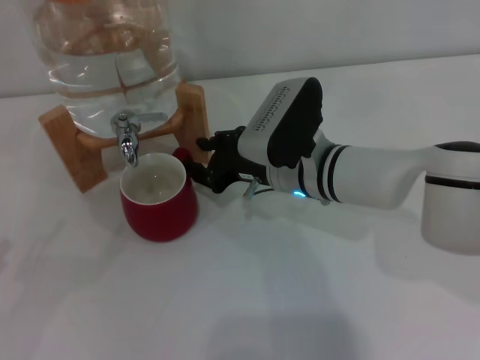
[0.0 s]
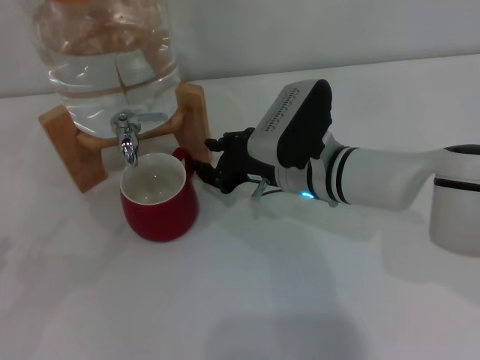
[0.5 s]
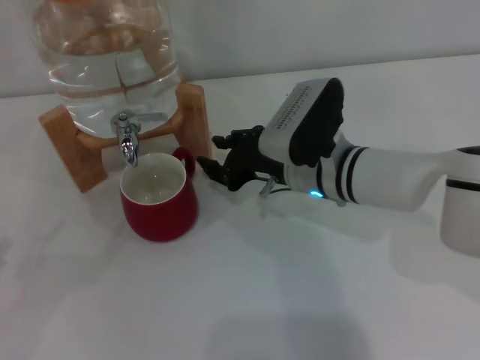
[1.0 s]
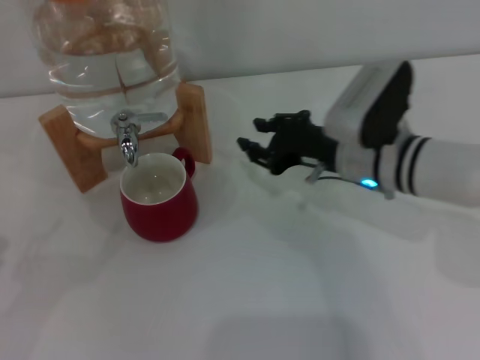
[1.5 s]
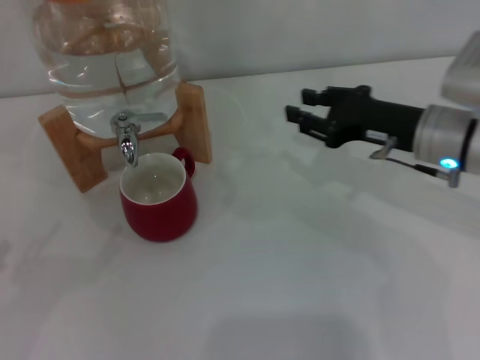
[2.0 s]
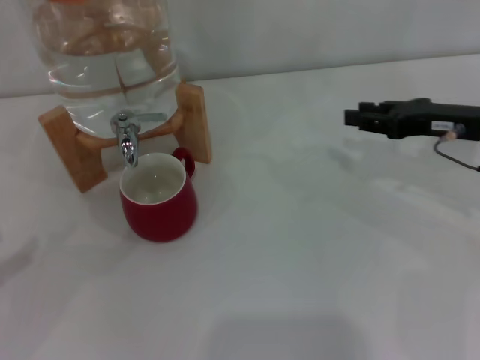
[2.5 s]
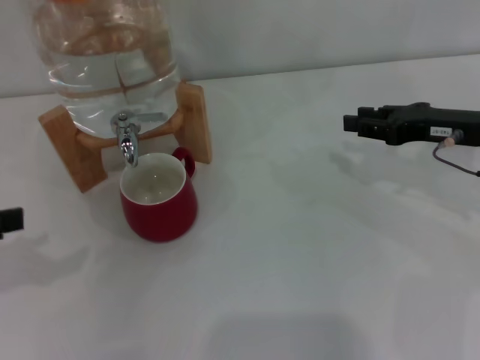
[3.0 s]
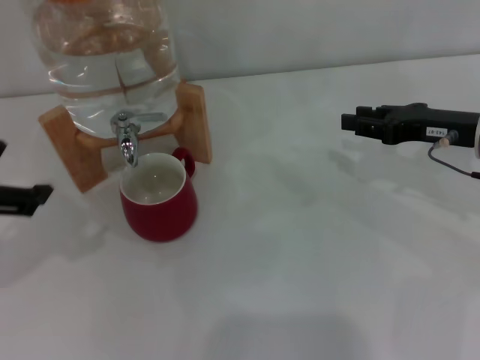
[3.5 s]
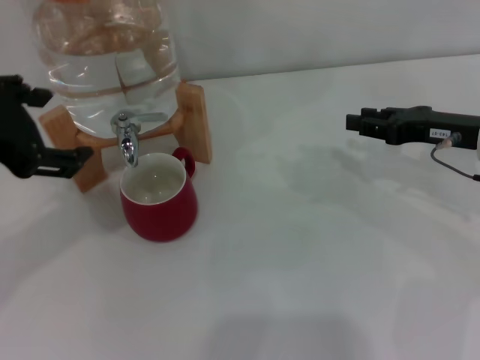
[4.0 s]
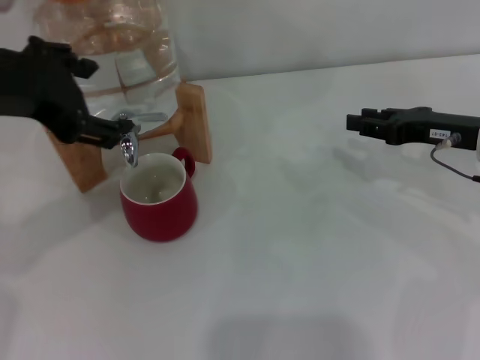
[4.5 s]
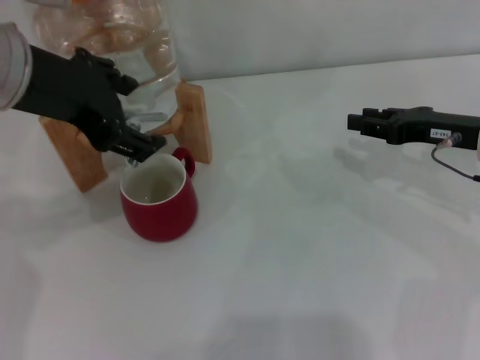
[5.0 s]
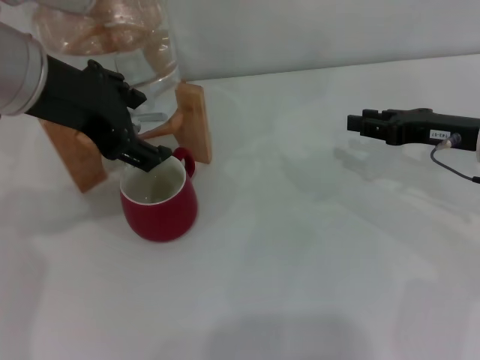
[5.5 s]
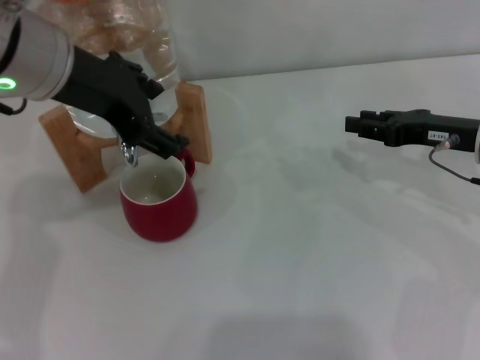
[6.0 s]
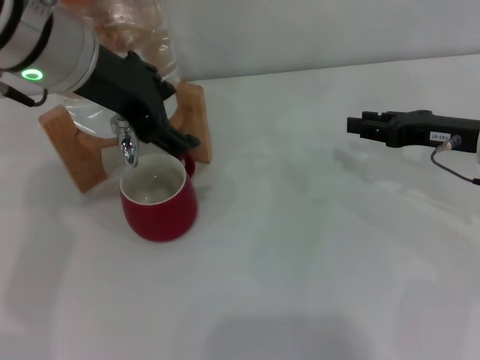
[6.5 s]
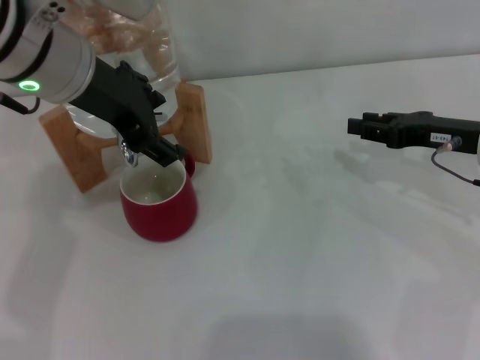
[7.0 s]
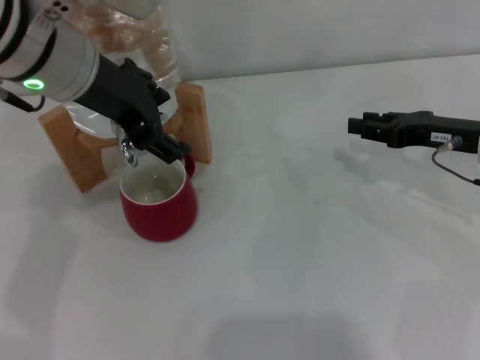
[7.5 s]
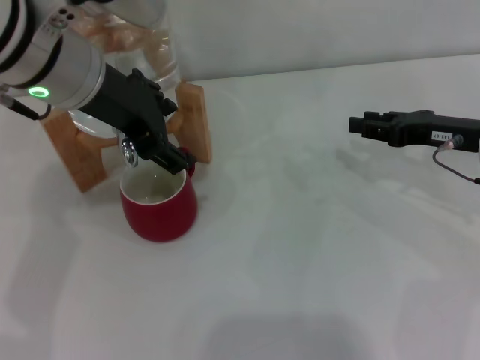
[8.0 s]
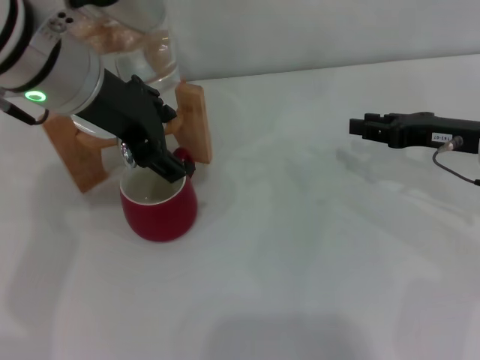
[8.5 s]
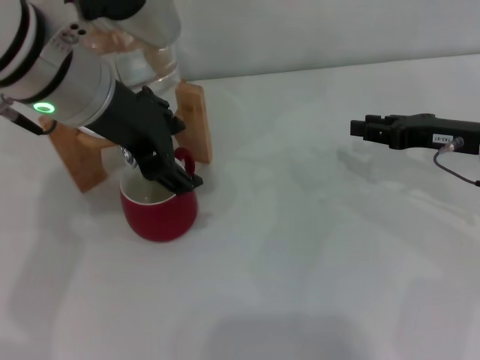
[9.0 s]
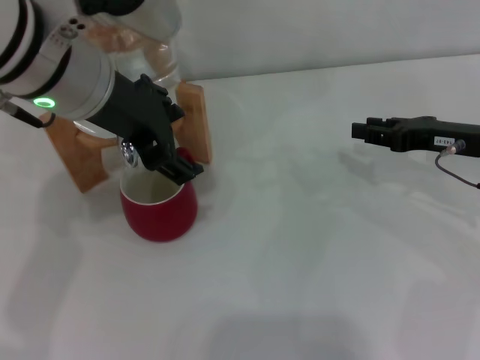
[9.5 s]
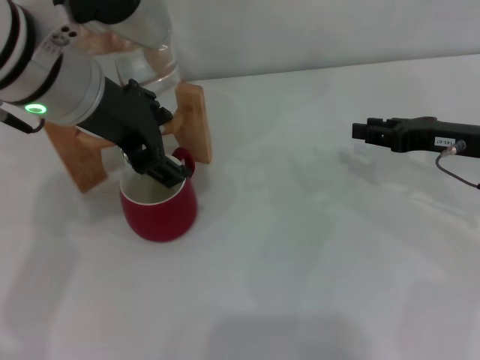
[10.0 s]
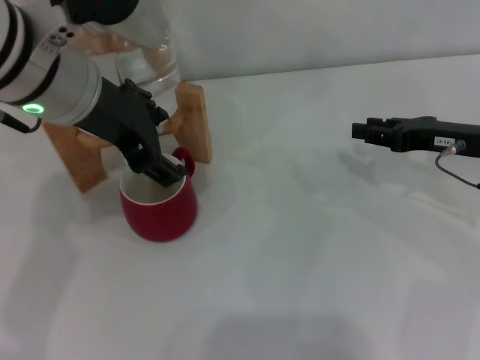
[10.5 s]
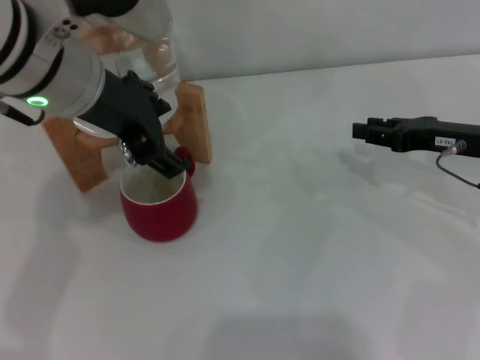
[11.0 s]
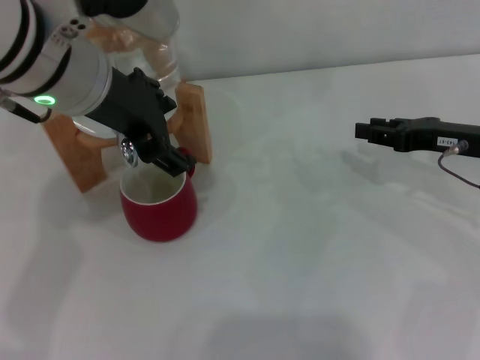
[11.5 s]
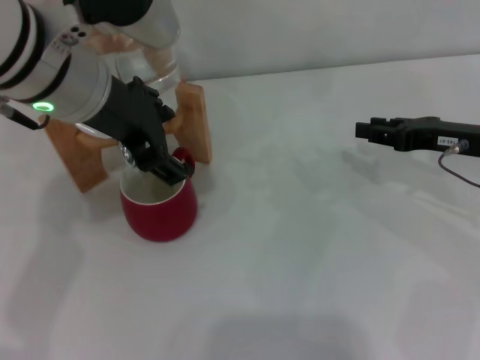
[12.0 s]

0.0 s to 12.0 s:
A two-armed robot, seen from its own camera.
Task of the whole recording: the right gripper pick up the red cup and place it horizontally under the faucet, the left gripper turn on the faucet to fill the cup, and then turn off the faucet.
0.0 to 2.0 s: The right gripper goes approximately 15 cm to the right.
2.0 to 4.0 s: The left gripper goes about 30 cm to the right, upward and forward. Meanwhile the right gripper heads to the right, covering some 5 cm.
4.0 to 6.0 s: The left gripper travels to the right and forward by about 10 cm.
6.0 to 10.0 s: There are only small adjustments of the grippers.
10.0 to 12.0 s: Both grippers stay about where they are.

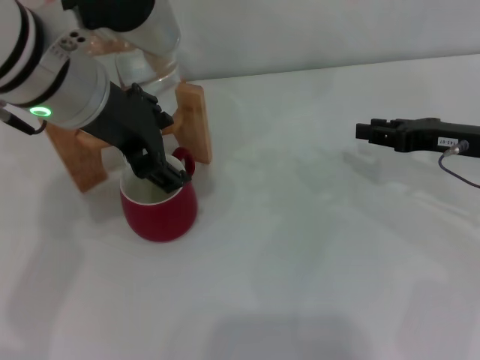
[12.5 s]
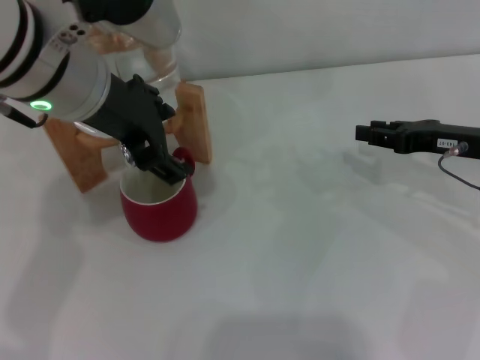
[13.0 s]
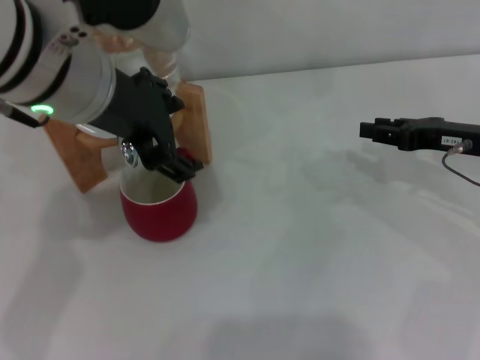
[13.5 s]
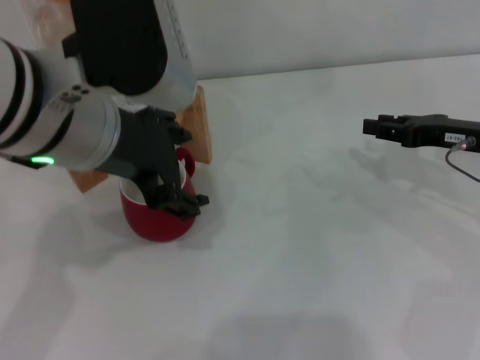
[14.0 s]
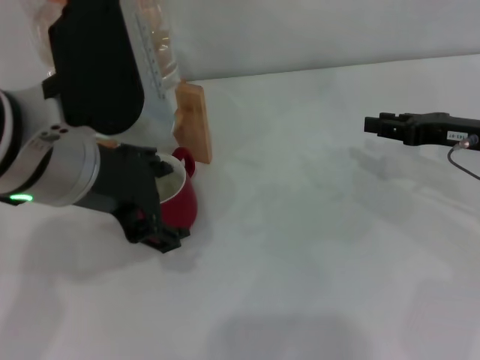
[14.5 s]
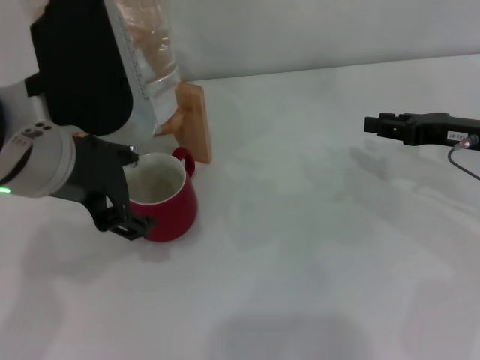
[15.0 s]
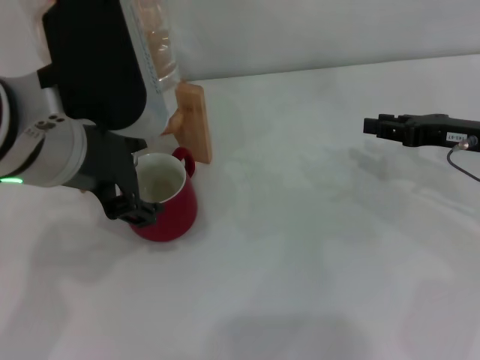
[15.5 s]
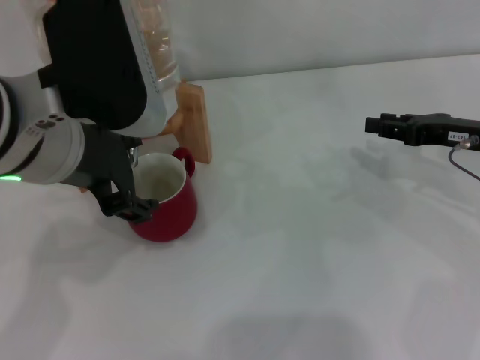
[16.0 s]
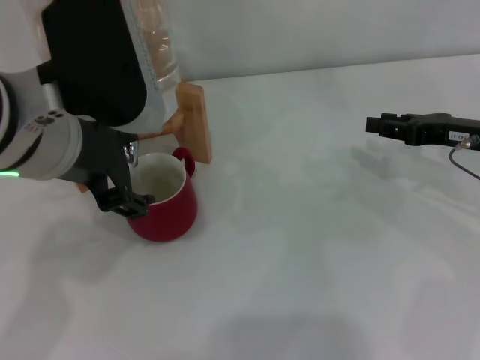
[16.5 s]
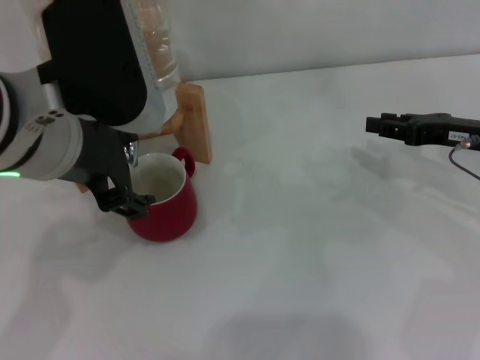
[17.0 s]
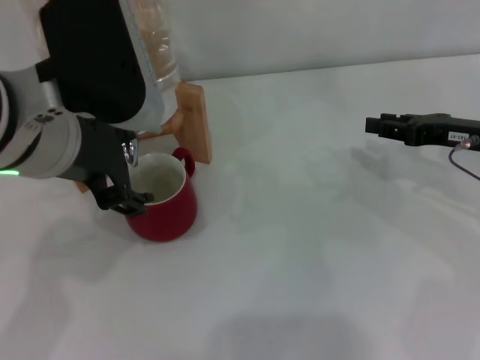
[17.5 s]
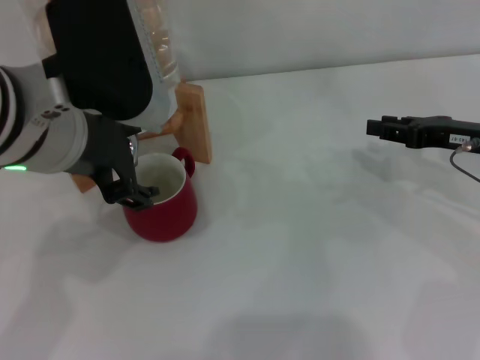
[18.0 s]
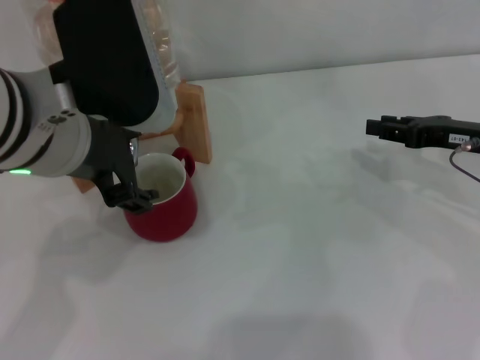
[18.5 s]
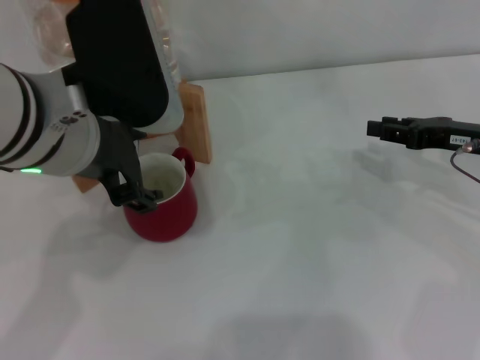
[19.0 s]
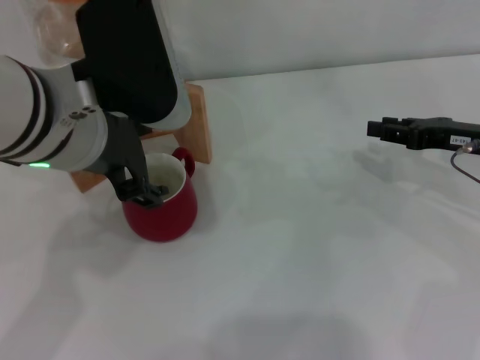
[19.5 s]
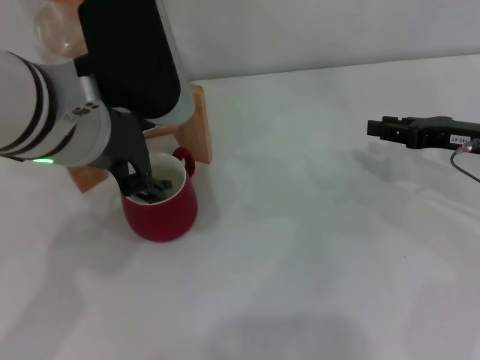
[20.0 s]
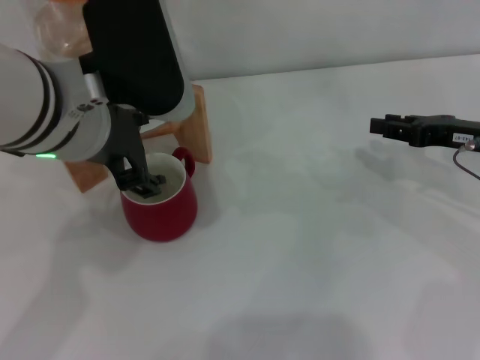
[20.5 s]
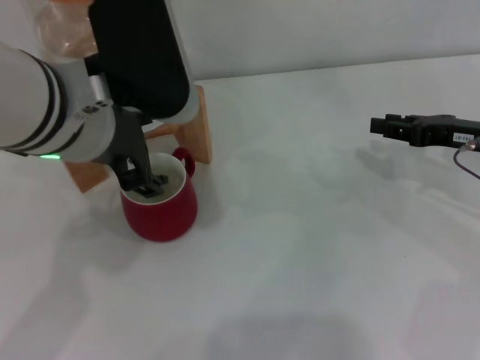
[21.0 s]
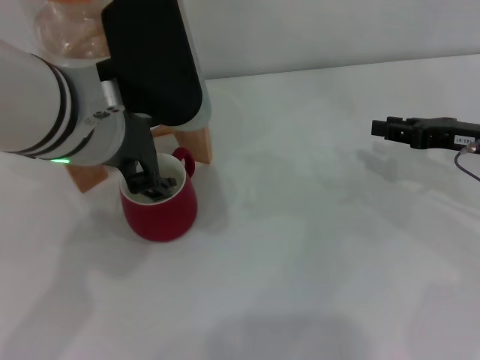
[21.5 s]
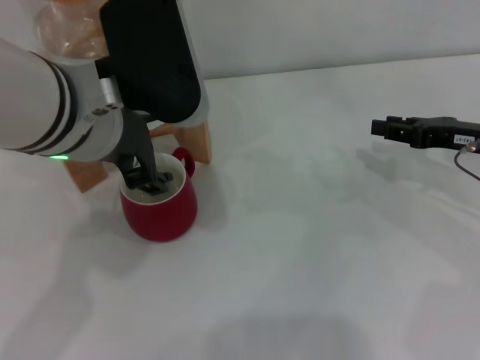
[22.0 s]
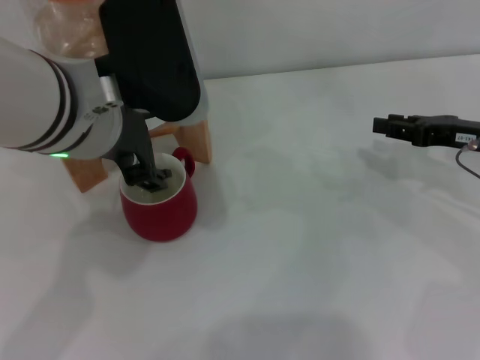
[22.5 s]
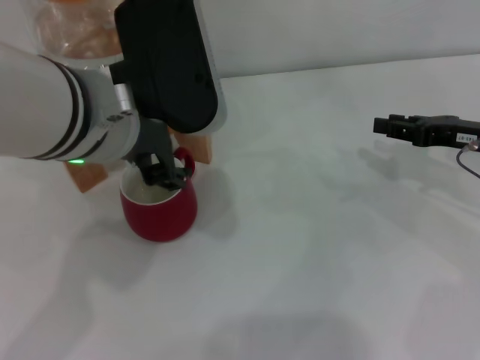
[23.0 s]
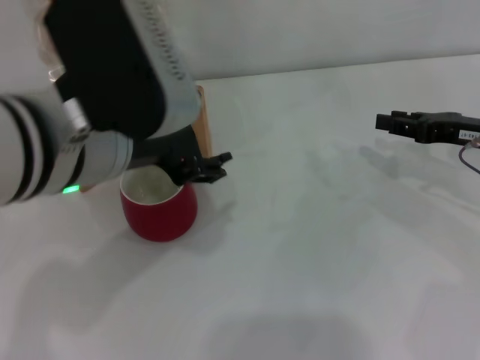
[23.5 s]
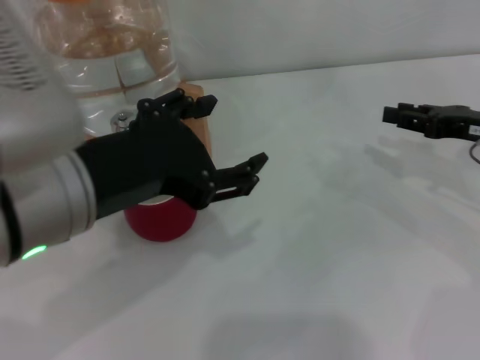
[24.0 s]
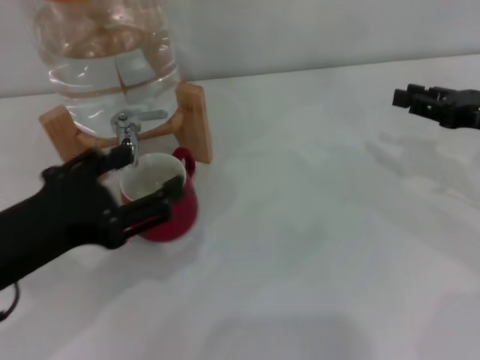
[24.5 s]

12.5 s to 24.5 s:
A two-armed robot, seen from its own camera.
Task of the whole recording: the right gripper pick up the red cup and place it horizontally under the faucet, the left gripper turn on the faucet to fill the cup, and then turn off the faucet.
Step, 14.0 to 23.0 s: Close the dispenser valve with the left gripper.
12.5 to 14.5 s: The left gripper is displaced backward by some 5 cm.
14.5 to 16.5 s: The grippers move only a little.
16.5 to 18.5 s: Neither gripper changes place.
18.5 to 20.5 s: The grippers move only a little.
20.5 to 22.5 s: The two grippers keep their place.
22.5 to 24.5 s: The left gripper is displaced to the left, backward and downward by approximately 15 cm.

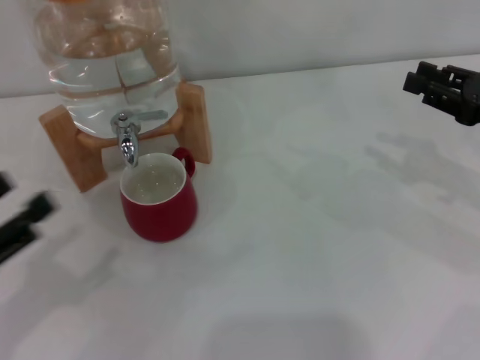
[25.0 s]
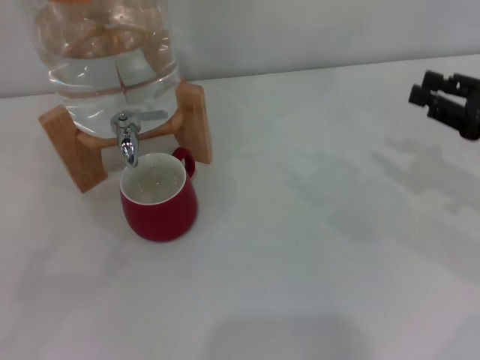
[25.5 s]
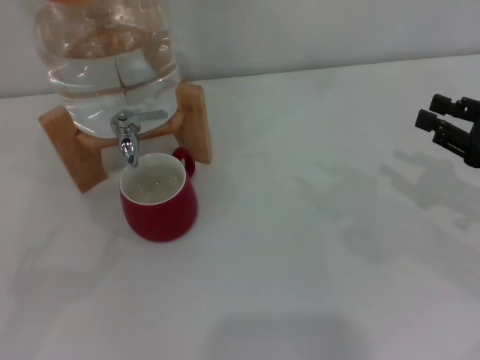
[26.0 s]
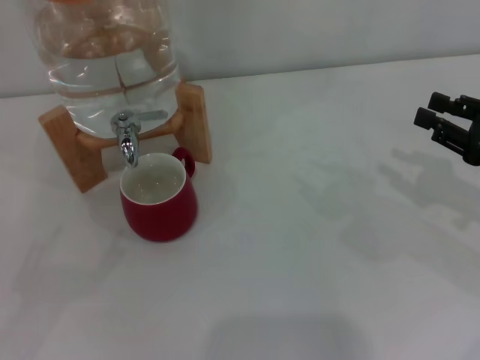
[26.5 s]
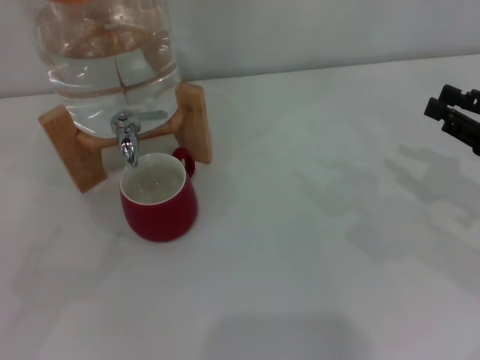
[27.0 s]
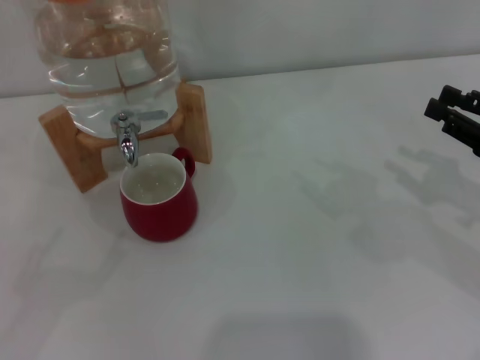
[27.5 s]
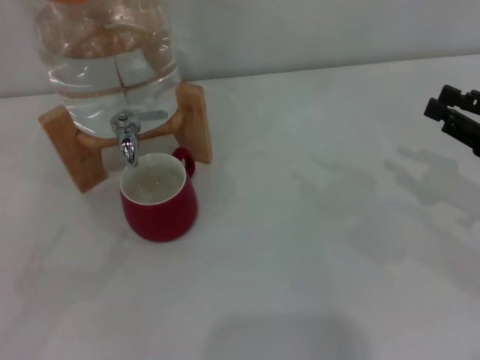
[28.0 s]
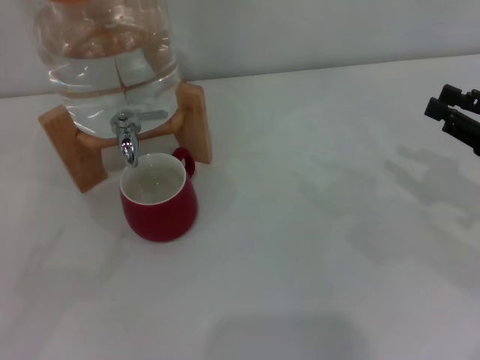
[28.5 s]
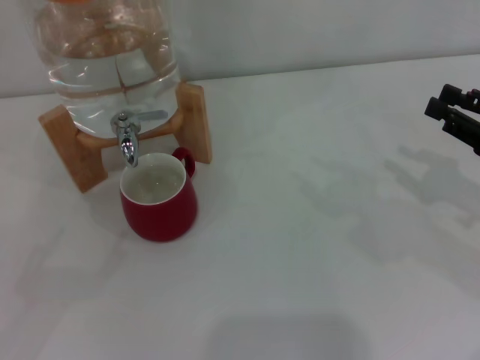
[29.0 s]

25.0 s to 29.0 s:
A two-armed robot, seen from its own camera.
Task of the whole recording: the right gripper pick up the red cup and place it horizontally under the faucet, the left gripper turn on the faucet to fill the cup, and then turn off the faucet.
25.0 to 27.0 s: The left gripper travels to the left by about 10 cm.
27.0 to 29.0 s: Both grippers stay about where they are.
